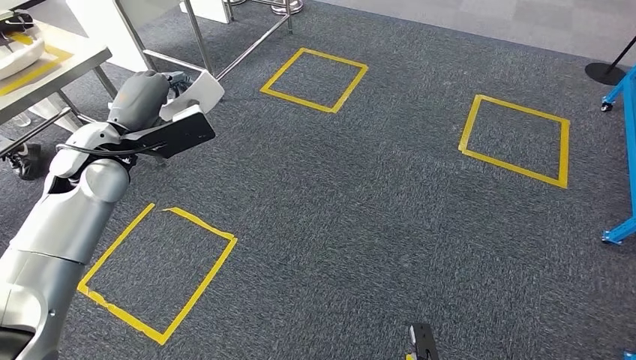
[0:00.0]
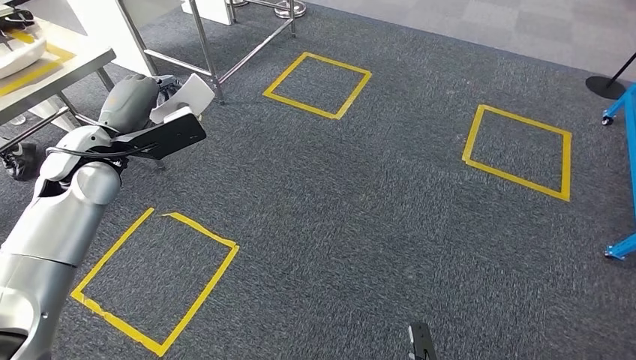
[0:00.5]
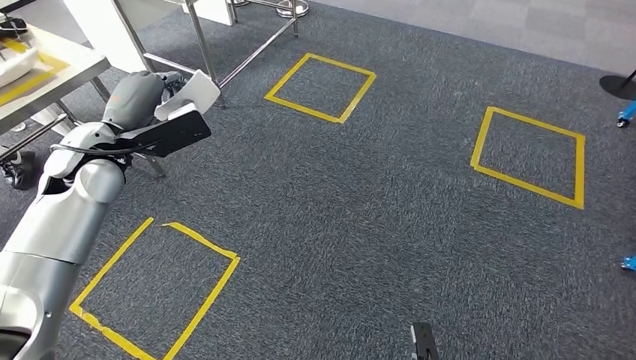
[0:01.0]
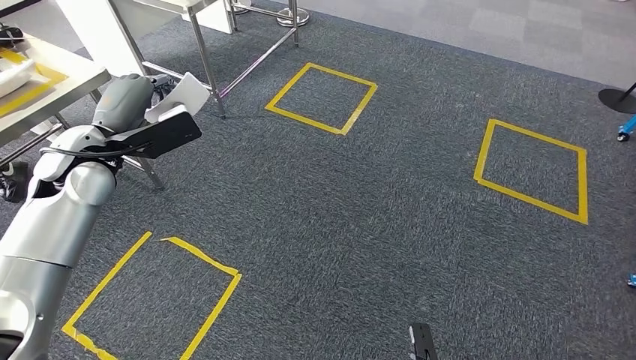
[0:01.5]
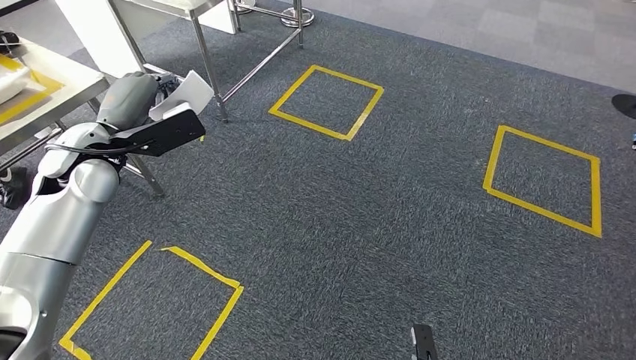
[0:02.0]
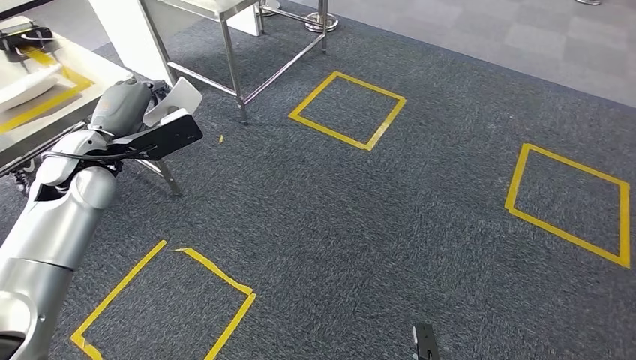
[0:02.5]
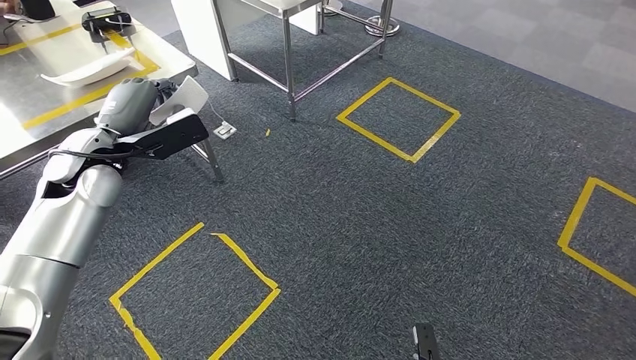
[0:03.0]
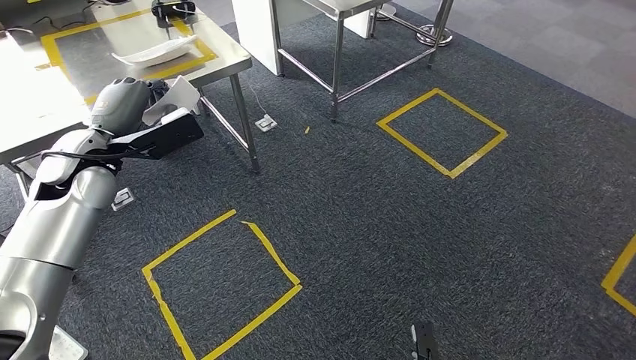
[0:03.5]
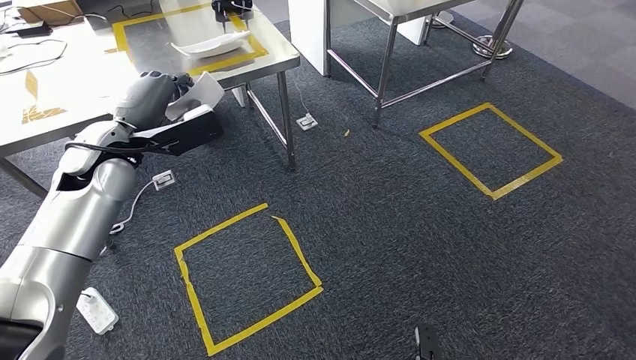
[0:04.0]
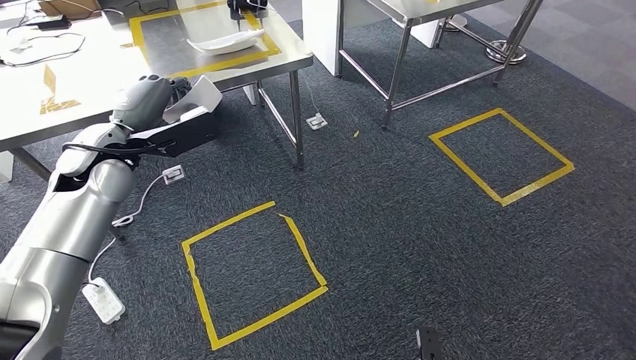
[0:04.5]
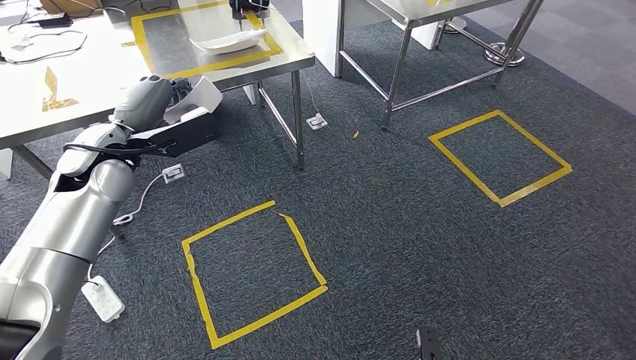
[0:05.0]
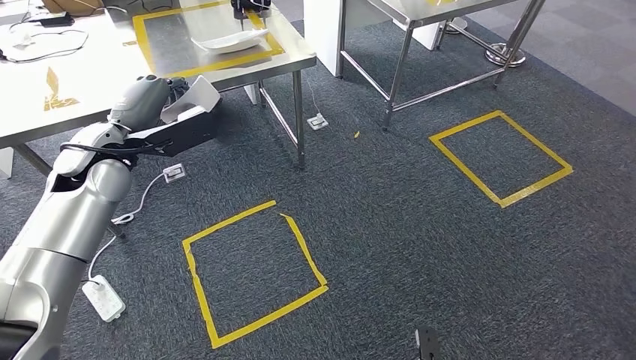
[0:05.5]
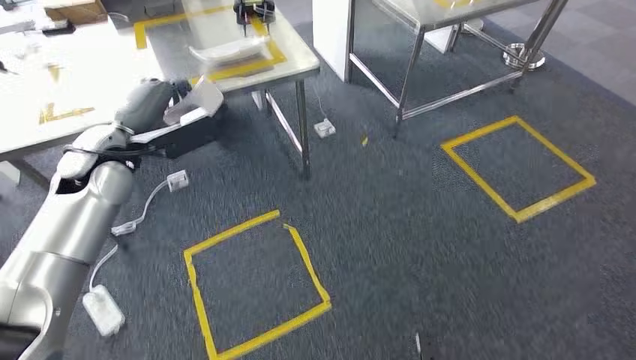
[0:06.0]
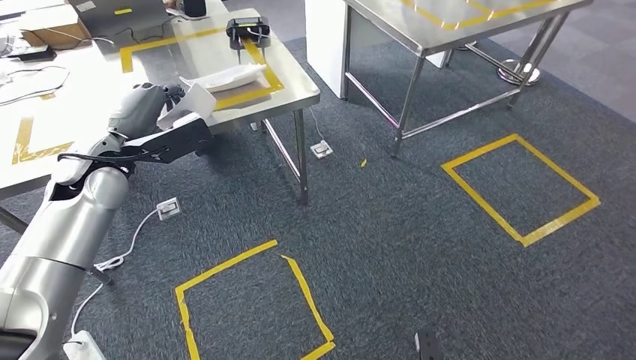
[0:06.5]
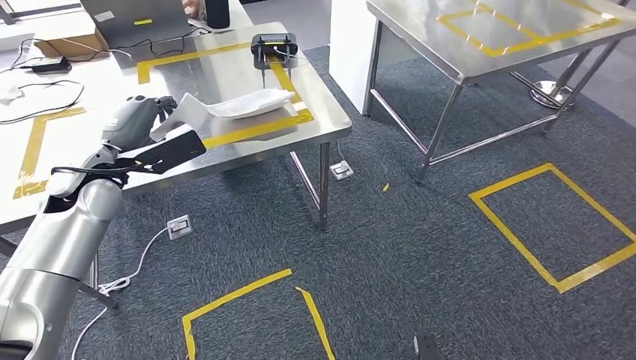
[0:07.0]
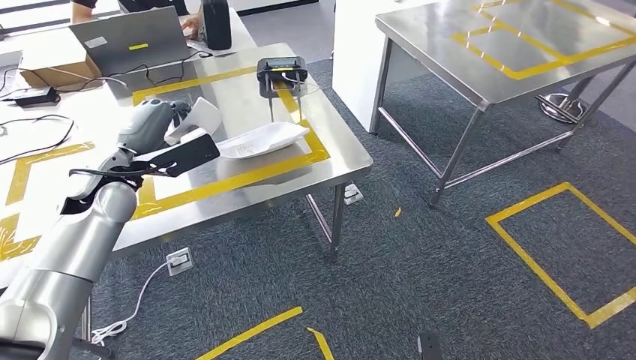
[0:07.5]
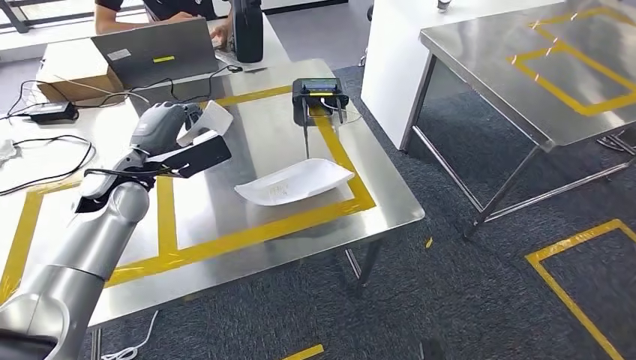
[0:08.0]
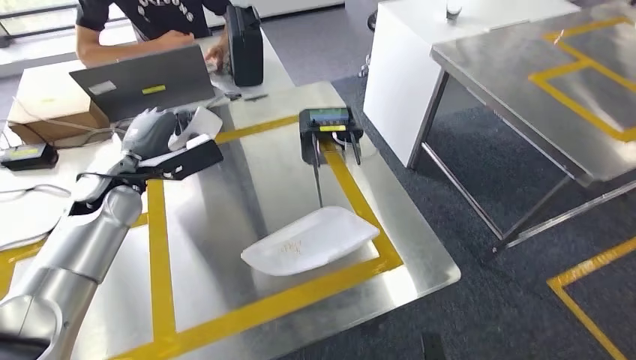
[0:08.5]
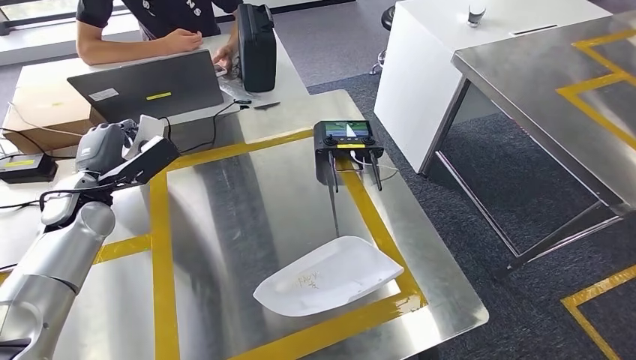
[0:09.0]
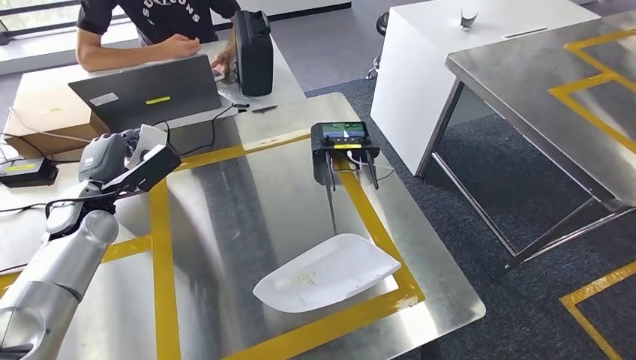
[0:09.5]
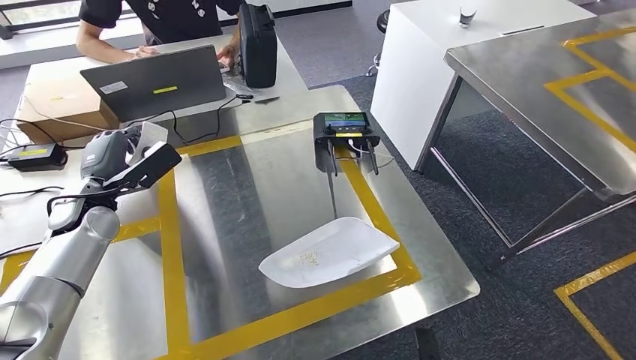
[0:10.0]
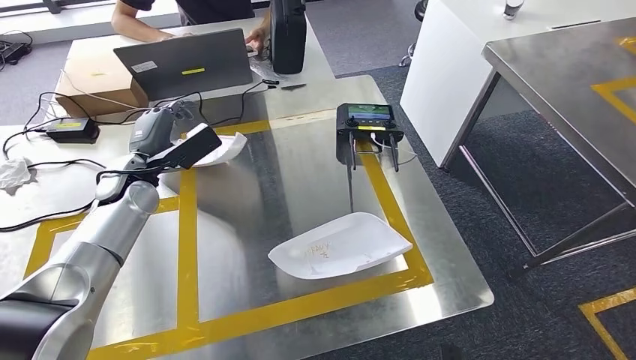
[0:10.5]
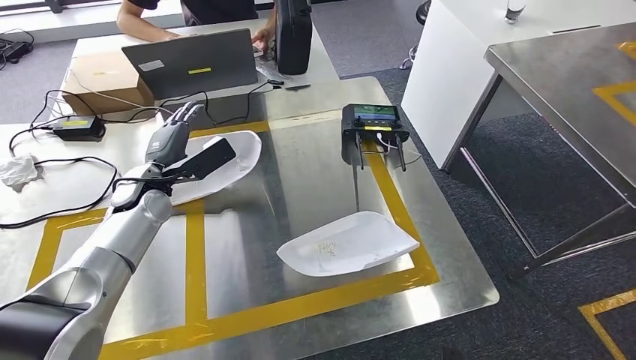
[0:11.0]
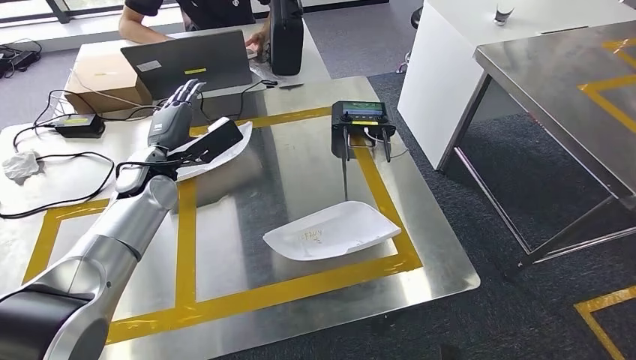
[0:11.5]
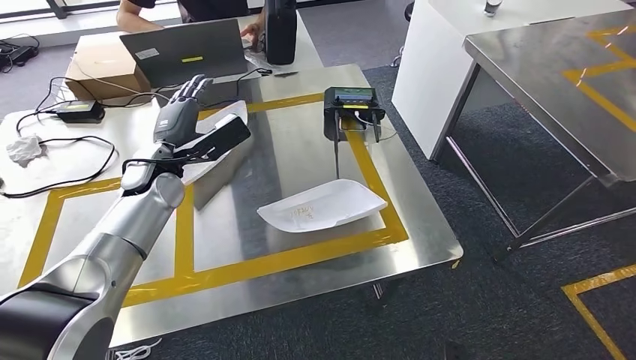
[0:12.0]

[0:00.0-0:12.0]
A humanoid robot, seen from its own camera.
Step, 0:00.0 to 0:07.5: Move the small component to the workbench.

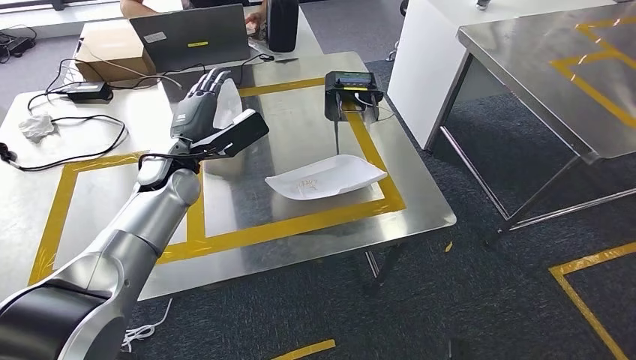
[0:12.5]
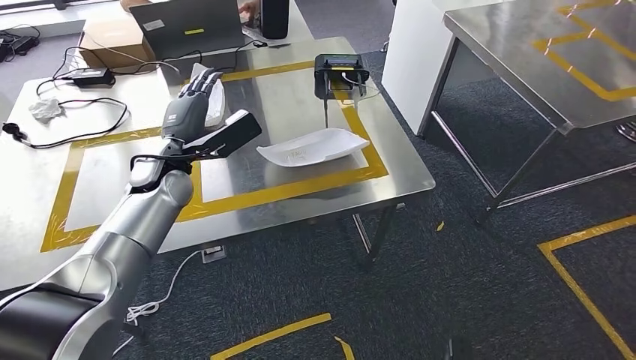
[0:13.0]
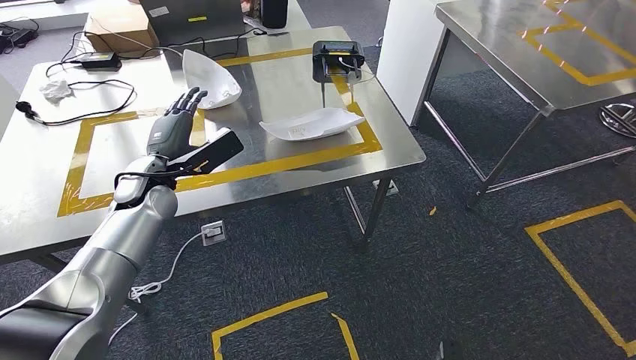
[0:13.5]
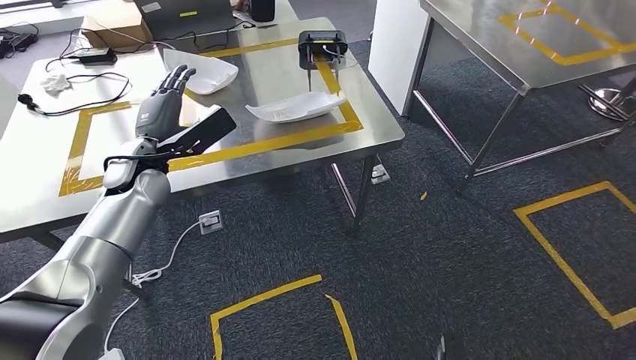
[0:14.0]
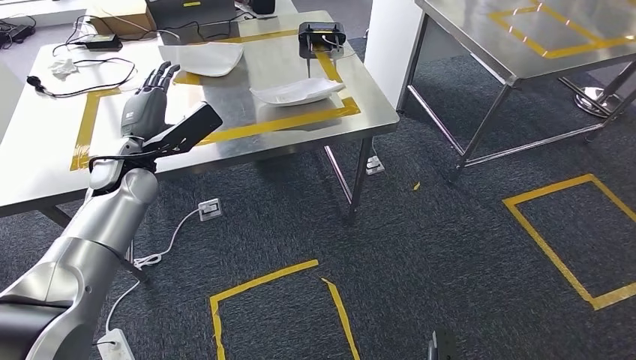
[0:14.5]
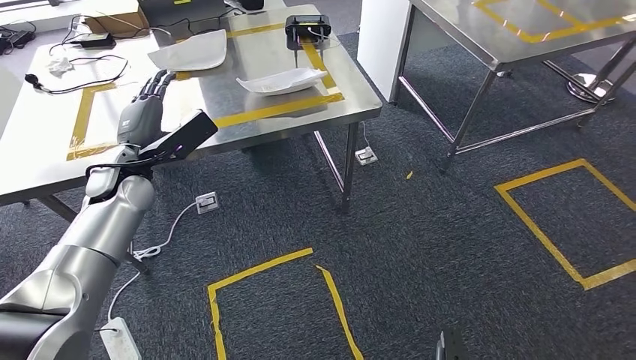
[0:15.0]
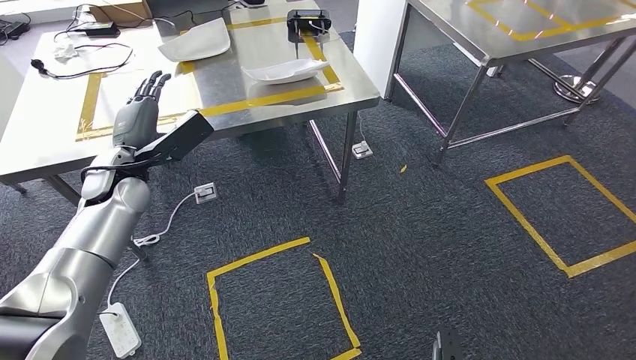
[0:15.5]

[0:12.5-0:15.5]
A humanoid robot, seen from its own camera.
Step, 0:13.0 to 0:15.5: Return to the initial position at the workbench.
